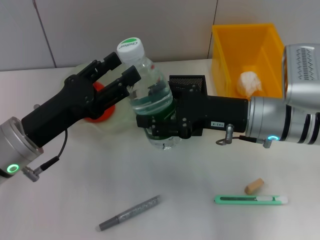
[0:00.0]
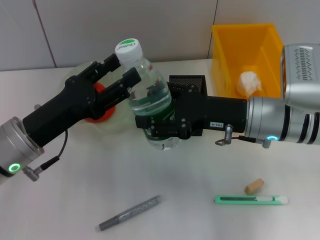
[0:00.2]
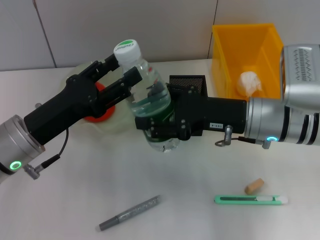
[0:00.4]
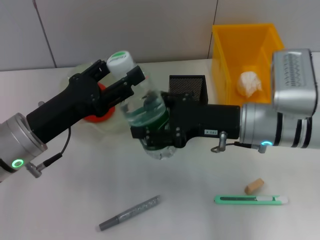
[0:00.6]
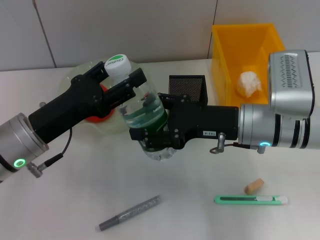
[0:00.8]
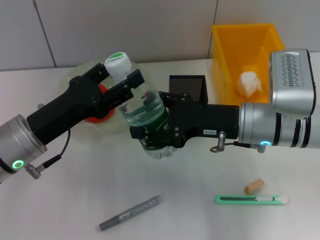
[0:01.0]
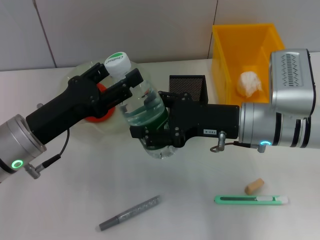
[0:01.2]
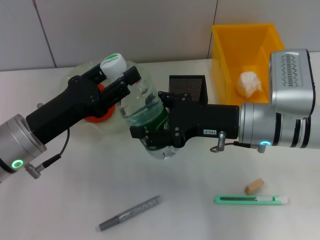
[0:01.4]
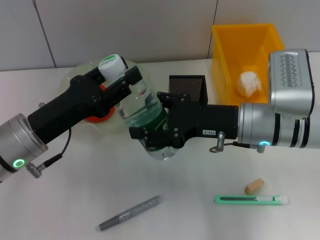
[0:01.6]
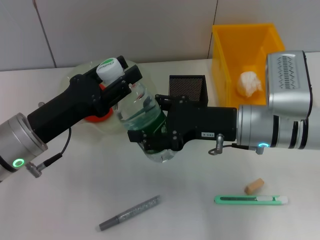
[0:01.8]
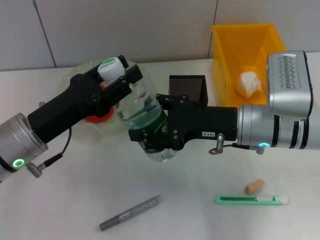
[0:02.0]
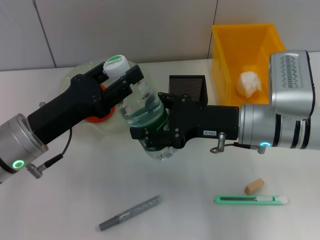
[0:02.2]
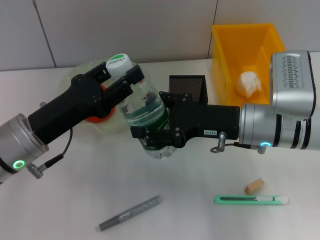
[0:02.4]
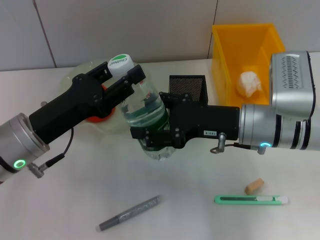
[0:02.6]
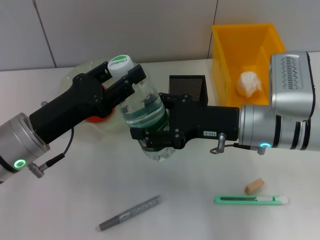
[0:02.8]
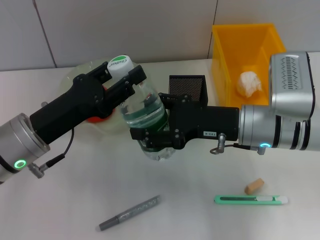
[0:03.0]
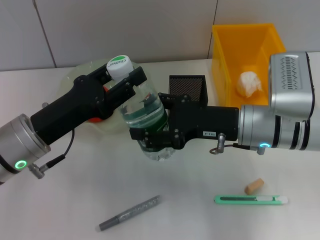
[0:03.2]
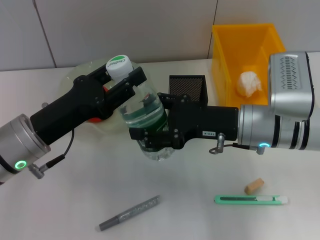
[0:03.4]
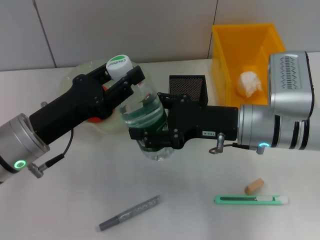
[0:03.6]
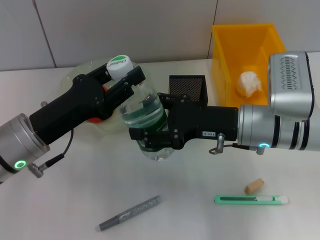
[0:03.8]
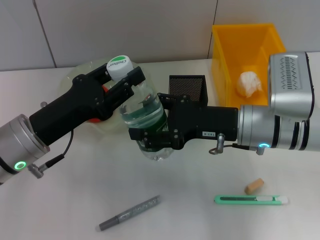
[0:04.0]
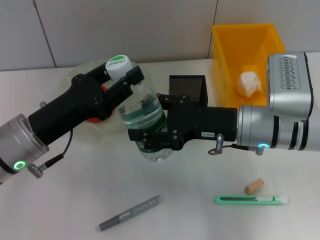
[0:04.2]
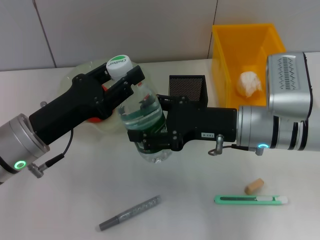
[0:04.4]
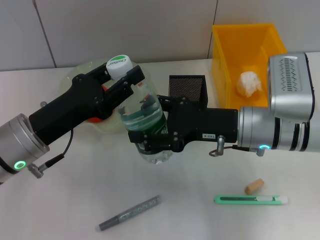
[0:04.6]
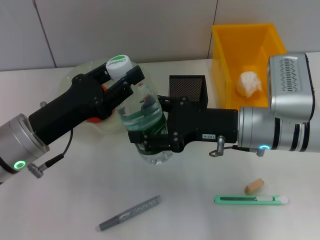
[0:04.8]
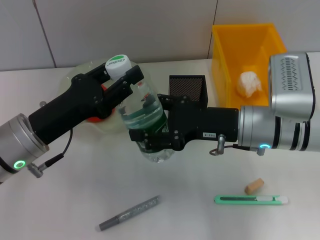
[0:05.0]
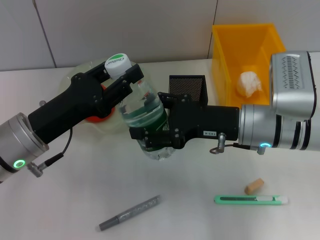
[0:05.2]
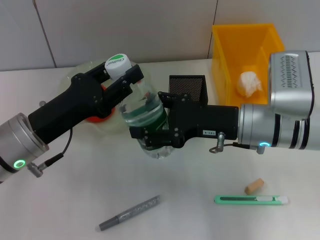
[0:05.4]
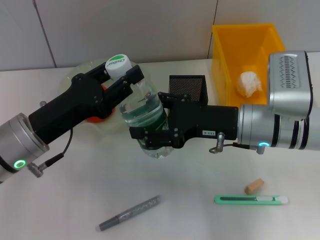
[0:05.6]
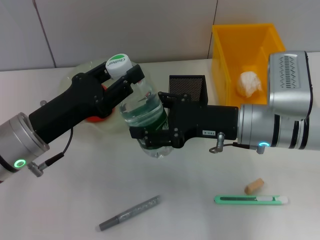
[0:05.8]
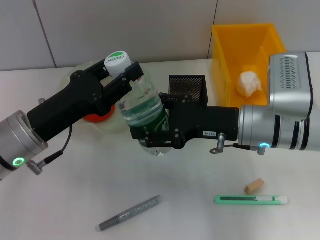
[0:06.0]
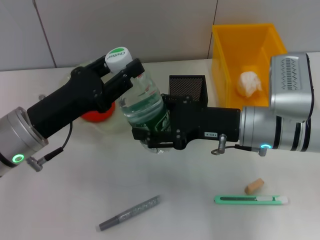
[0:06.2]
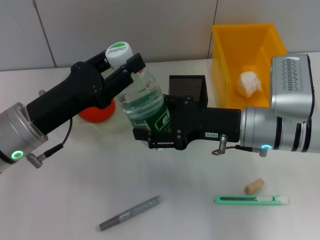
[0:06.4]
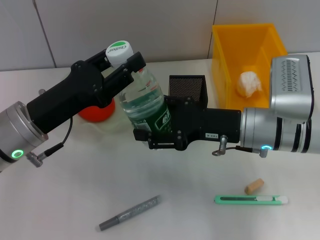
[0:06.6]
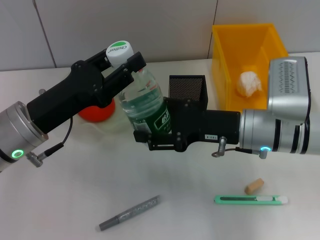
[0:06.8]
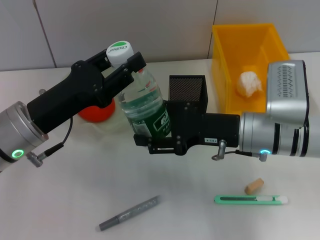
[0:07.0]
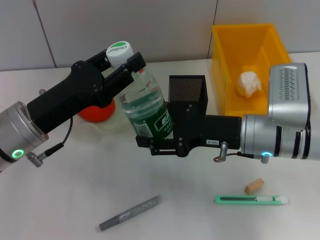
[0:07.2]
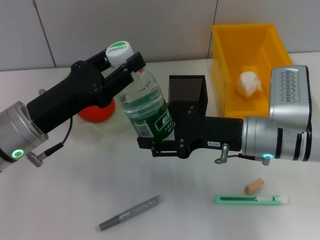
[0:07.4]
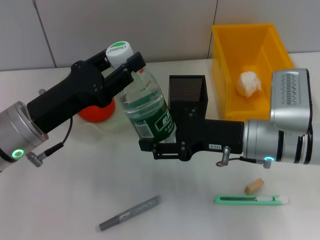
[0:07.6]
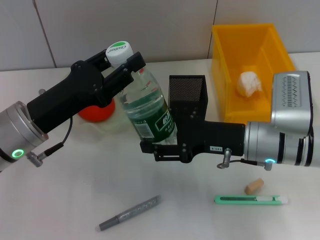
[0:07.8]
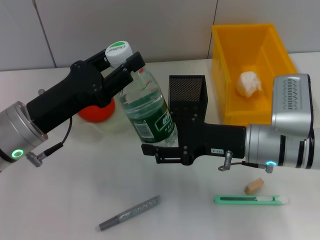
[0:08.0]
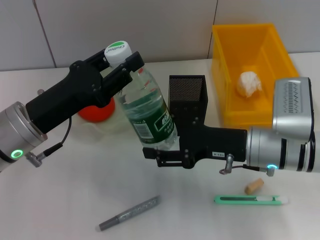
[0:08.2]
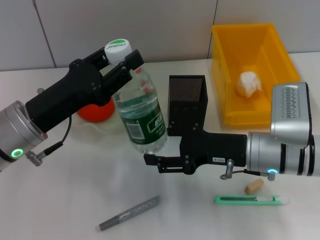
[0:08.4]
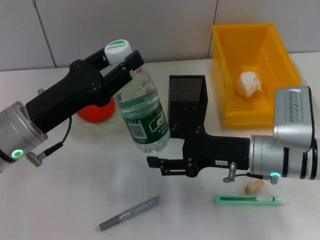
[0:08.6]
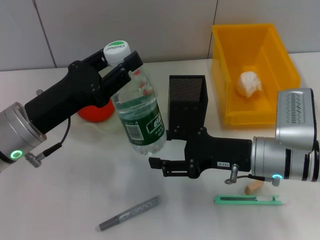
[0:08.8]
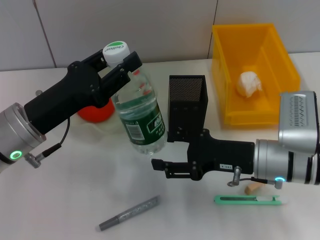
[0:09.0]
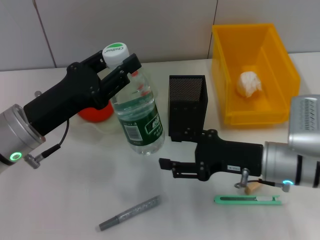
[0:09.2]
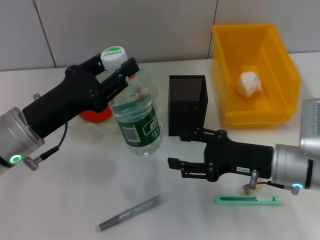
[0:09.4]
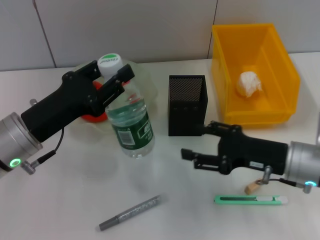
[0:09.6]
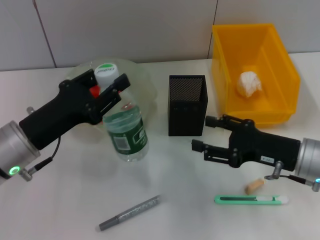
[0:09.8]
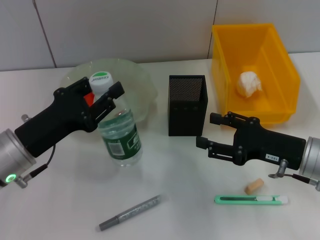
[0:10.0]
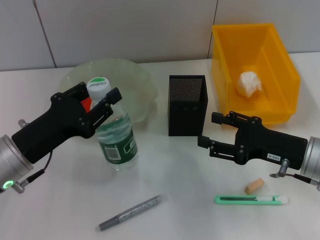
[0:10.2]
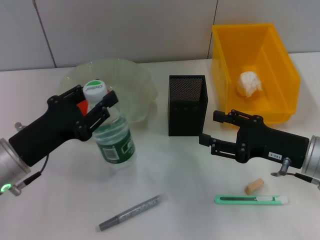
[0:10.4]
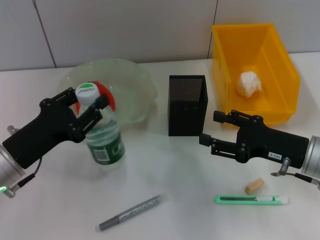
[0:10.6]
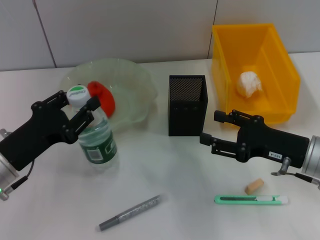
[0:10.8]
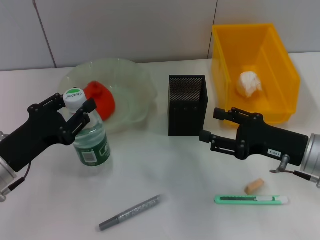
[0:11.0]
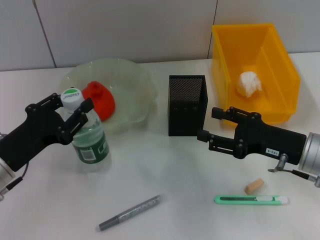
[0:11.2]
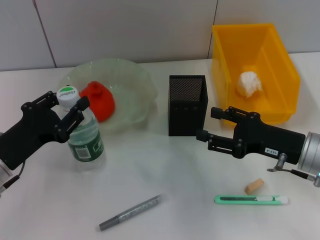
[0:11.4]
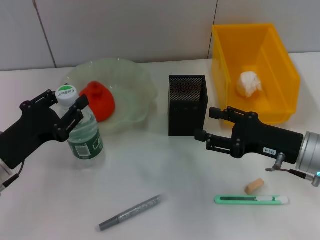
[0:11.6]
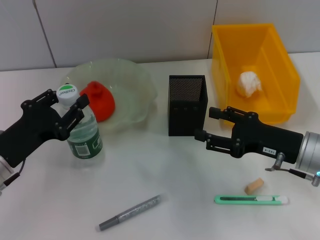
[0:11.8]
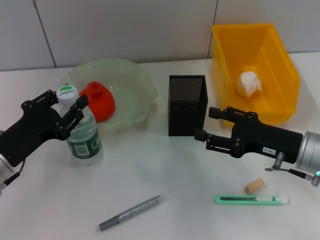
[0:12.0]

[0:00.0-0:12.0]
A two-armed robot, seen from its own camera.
Step, 0:00.0 to 0:08.4: Pass the water bottle from the right hand to the left hand.
0:00.0 to 0:01.6: The two grippers keep their place.
0:01.6 to 0:06.0: Both grippers stay put.
0:06.0 to 0:09.0: The grippers stay close to where they were, moving slightly.
0:09.0 to 0:10.4: The right gripper moves to the right, approximately 5 cm. The left gripper changes place by about 5 cm.
0:10.4 to 0:12.0: The grippers stay close to where they were, moving slightly.

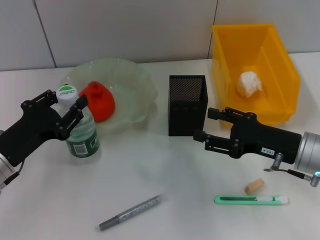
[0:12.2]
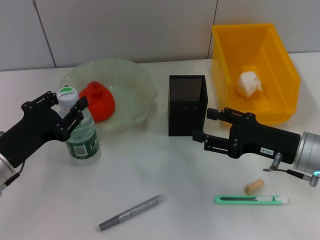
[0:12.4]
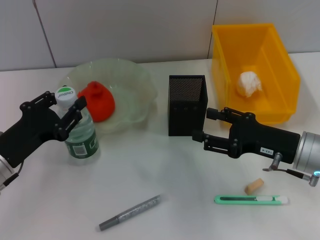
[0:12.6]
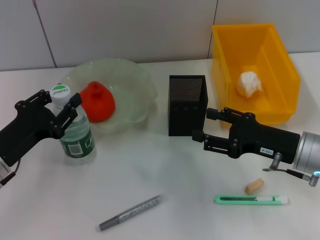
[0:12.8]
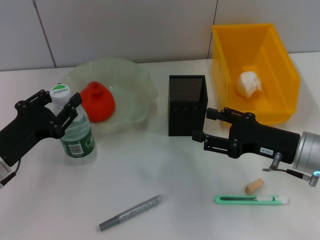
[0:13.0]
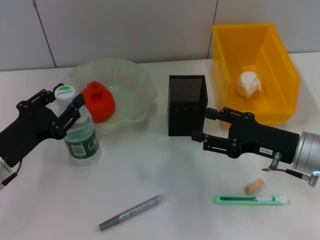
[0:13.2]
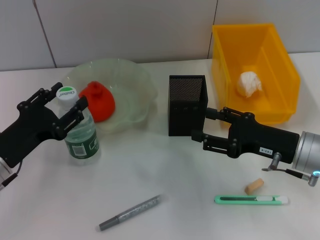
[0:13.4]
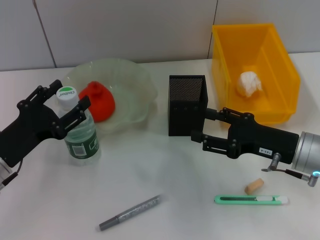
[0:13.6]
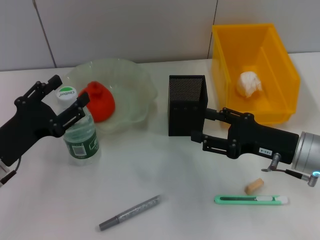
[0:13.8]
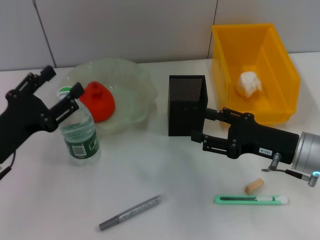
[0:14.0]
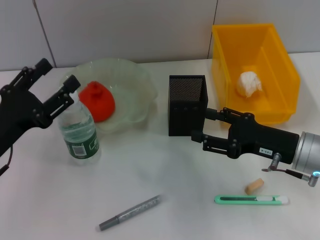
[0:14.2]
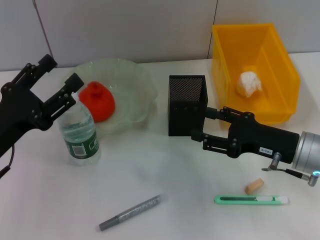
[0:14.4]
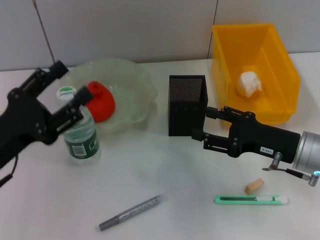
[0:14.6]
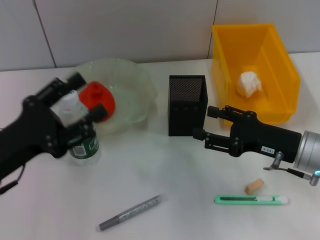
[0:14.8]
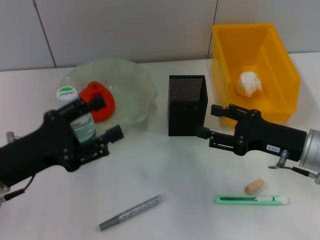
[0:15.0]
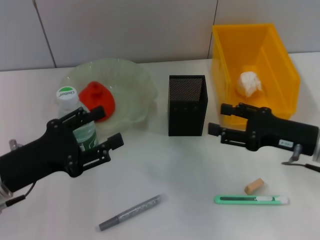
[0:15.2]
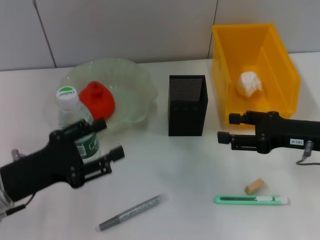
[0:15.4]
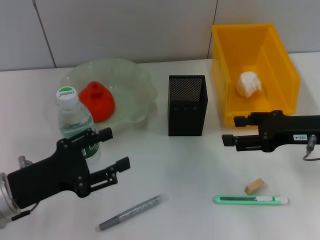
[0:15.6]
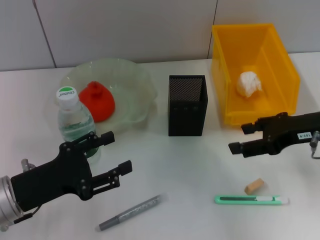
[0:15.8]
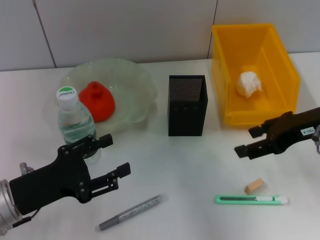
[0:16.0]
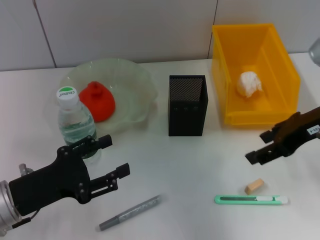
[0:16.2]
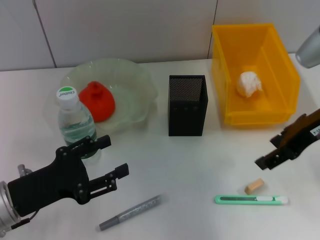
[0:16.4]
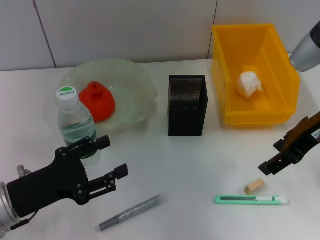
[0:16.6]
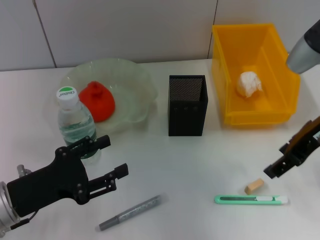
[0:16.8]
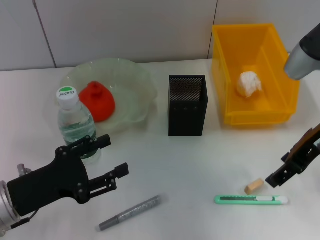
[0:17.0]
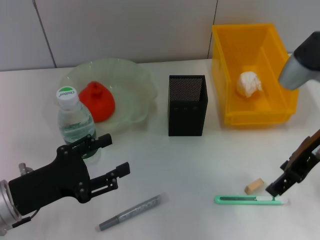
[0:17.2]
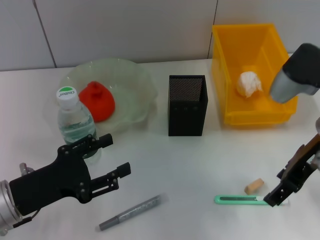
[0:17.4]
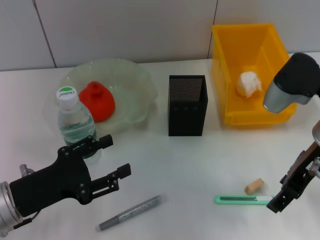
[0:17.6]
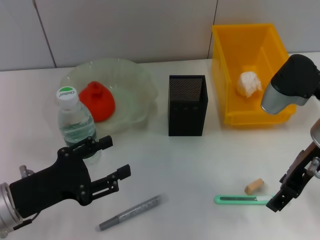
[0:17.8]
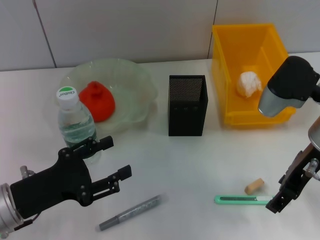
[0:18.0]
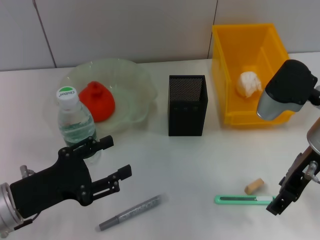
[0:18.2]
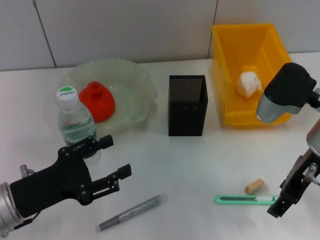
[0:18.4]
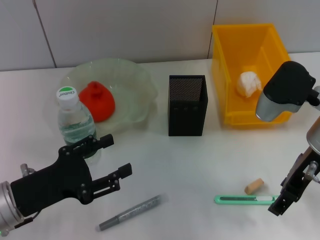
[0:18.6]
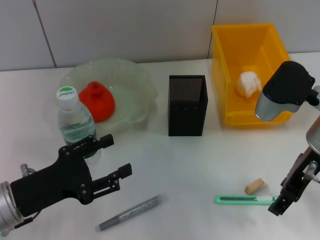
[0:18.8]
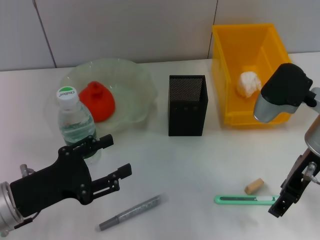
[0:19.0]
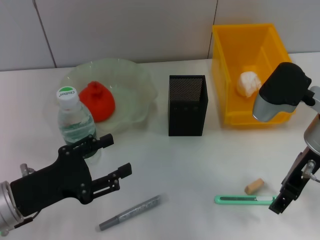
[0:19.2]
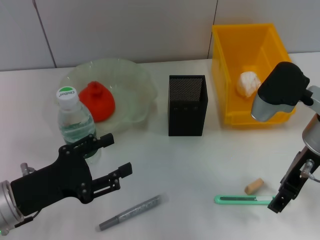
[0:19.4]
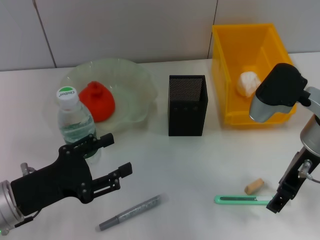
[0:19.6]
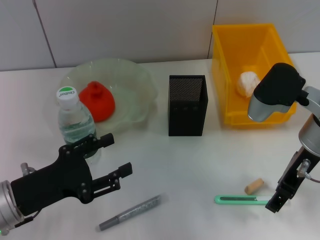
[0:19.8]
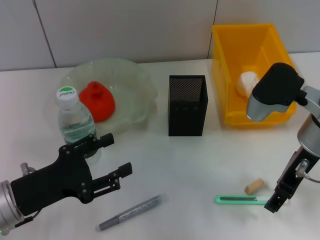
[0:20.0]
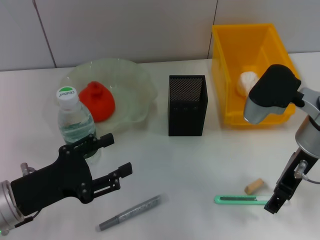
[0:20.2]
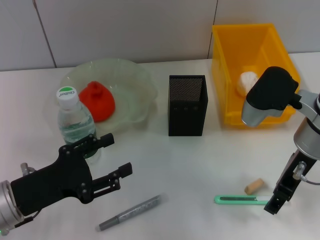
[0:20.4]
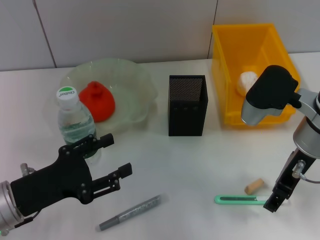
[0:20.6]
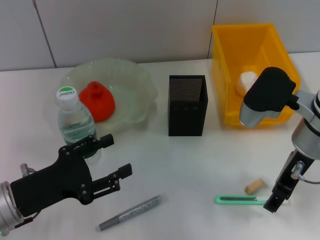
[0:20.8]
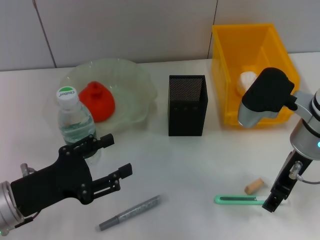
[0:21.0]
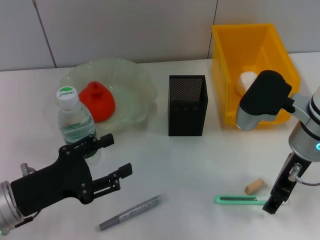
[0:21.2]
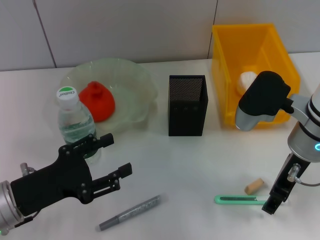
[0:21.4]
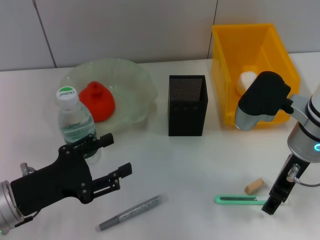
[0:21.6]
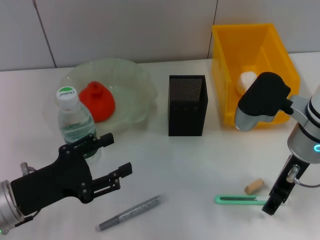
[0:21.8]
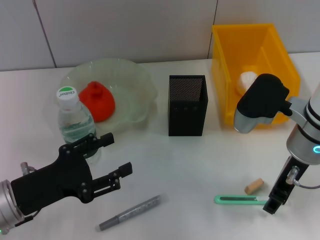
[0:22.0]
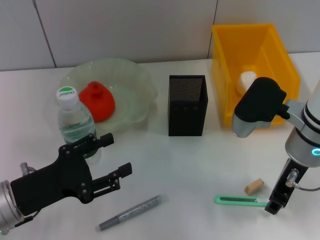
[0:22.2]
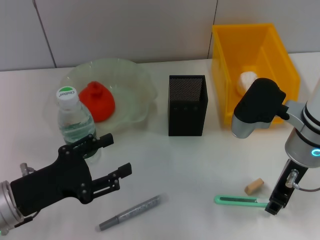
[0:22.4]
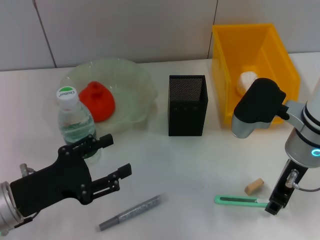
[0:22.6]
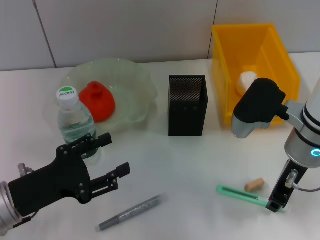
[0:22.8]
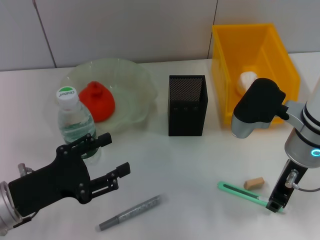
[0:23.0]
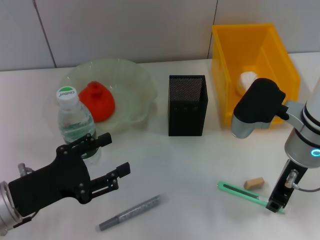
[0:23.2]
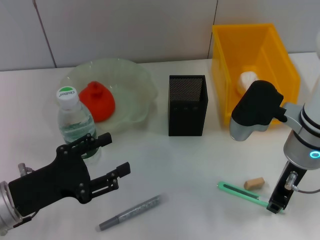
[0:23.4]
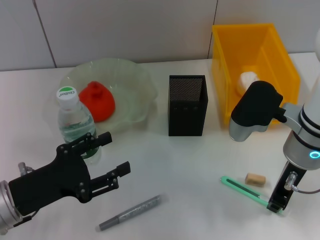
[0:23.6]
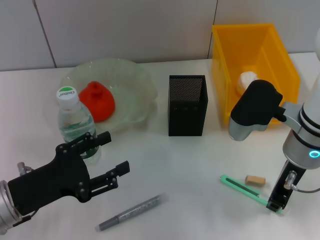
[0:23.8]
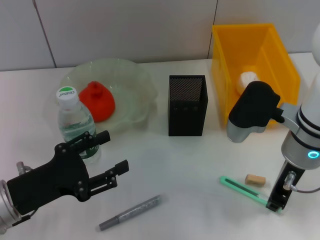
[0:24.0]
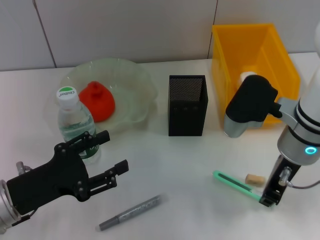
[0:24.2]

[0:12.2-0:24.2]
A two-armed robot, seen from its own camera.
Step, 0:13.8 to 0:23.6: Grab the blue utility knife with the right hand.
0:12.2 to 0:13.8: The left gripper opens up.
0:15.2 to 0:16.6: The right gripper goes about 10 cm upward.
0:16.6 to 0:18.2: The right gripper shifts by some 5 cm.
0:18.2 to 0:21.2: There are only small adjustments of the grippers.
0:21.2 to 0:22.6: The right gripper closes up.
0:22.6 to 0:24.2: The right gripper closes its fingers.
